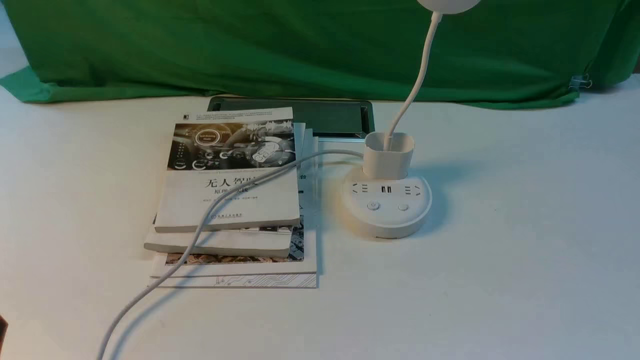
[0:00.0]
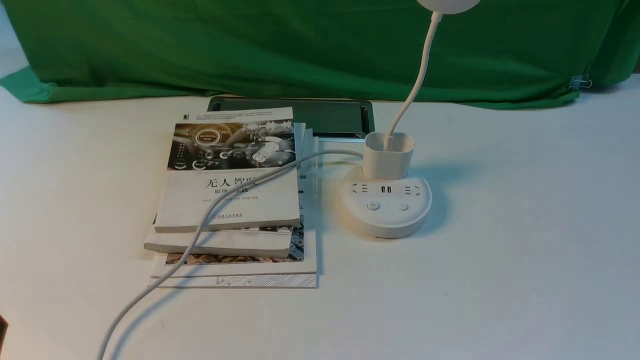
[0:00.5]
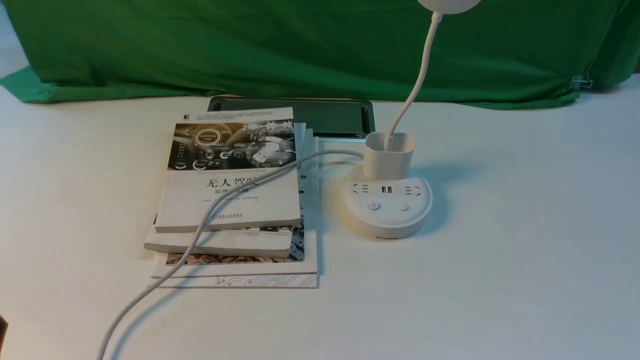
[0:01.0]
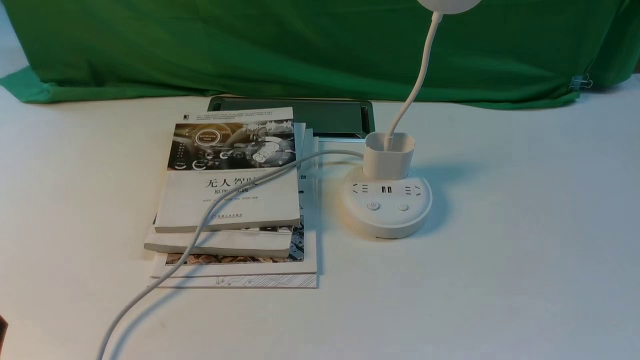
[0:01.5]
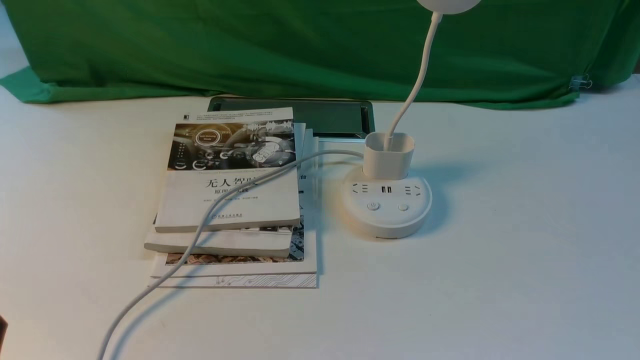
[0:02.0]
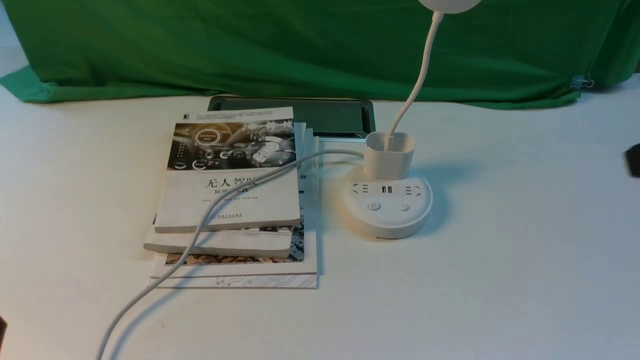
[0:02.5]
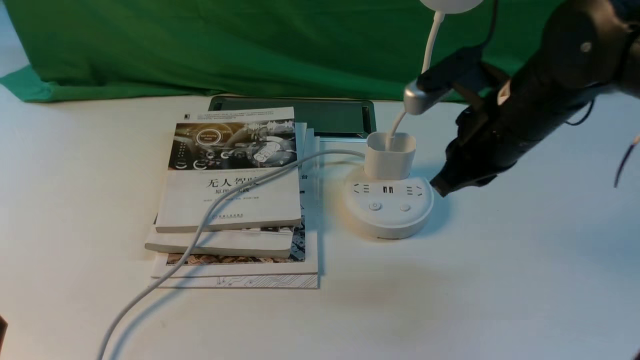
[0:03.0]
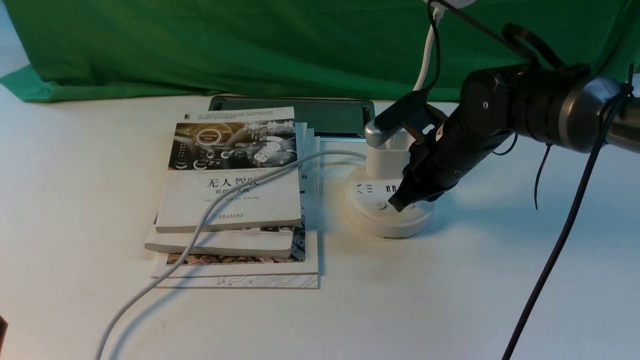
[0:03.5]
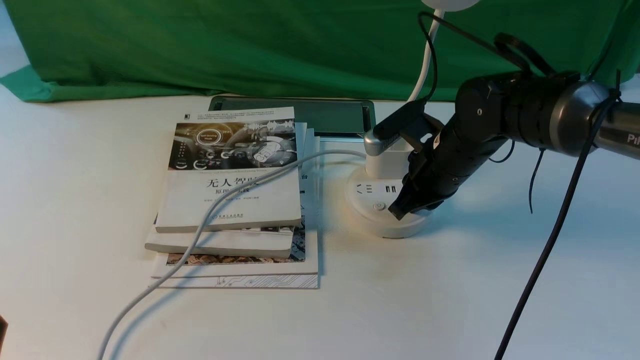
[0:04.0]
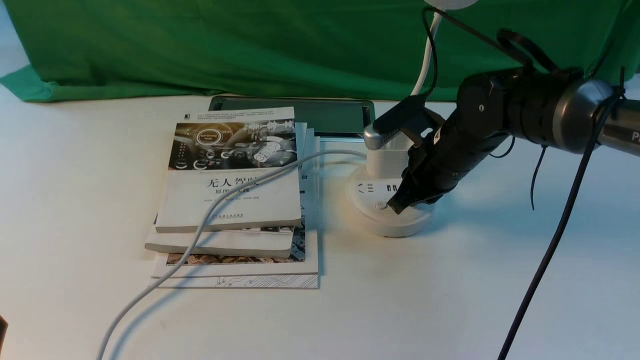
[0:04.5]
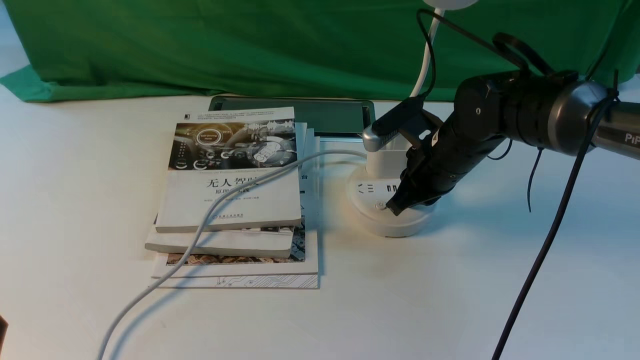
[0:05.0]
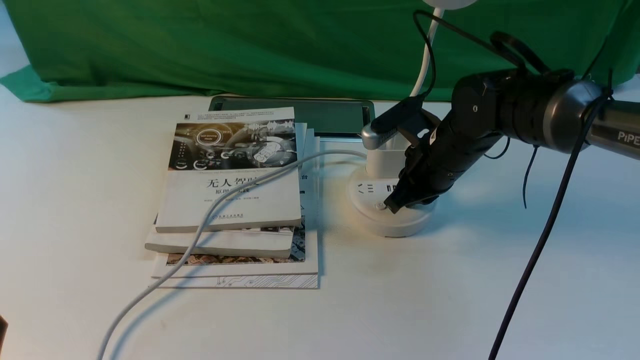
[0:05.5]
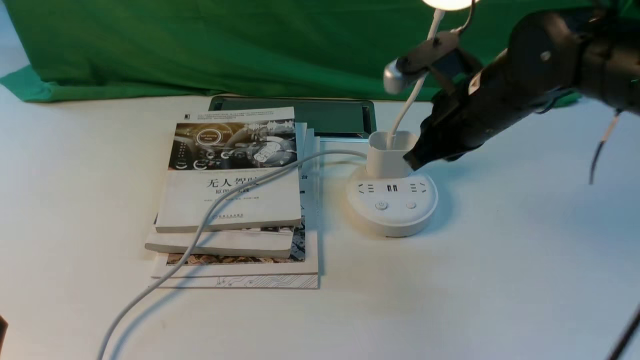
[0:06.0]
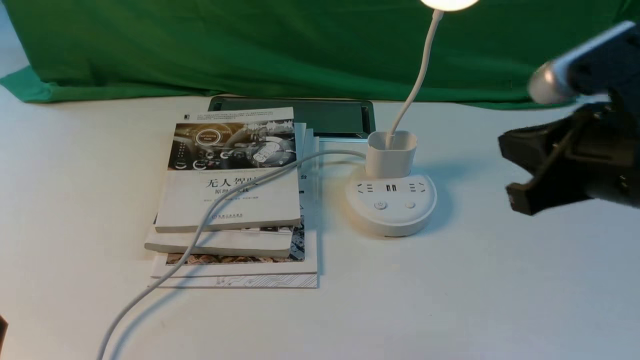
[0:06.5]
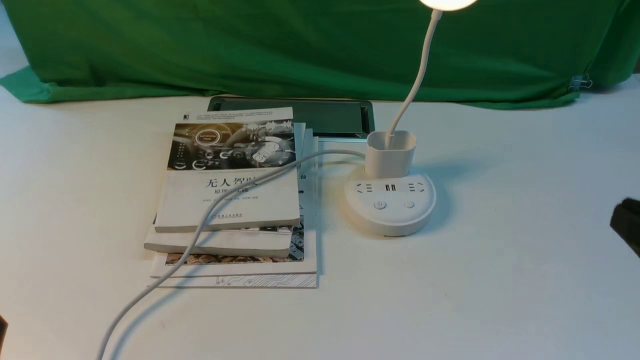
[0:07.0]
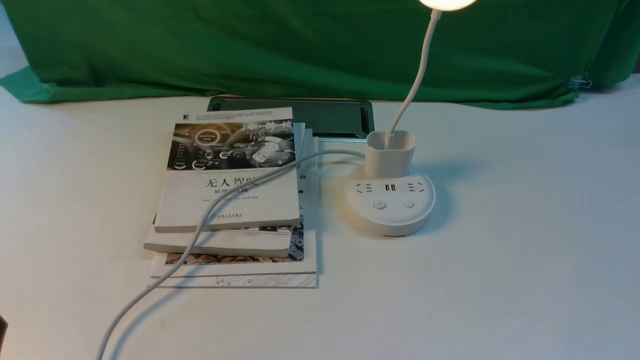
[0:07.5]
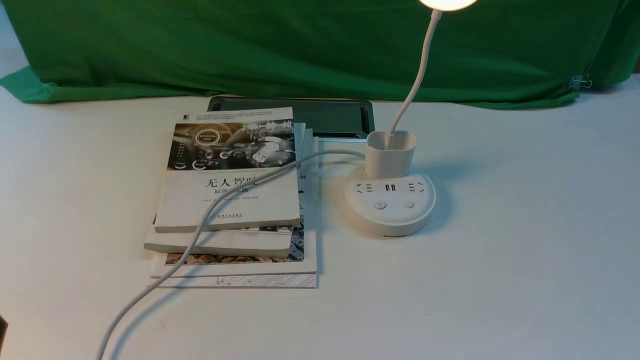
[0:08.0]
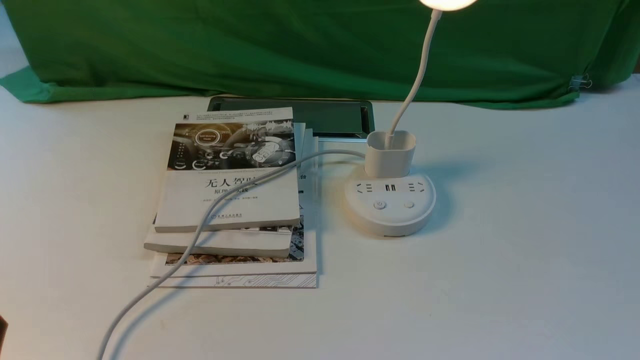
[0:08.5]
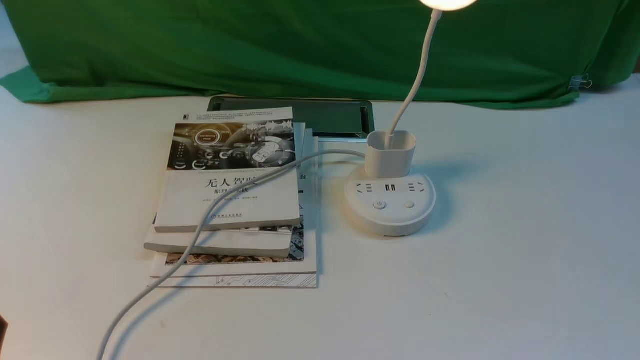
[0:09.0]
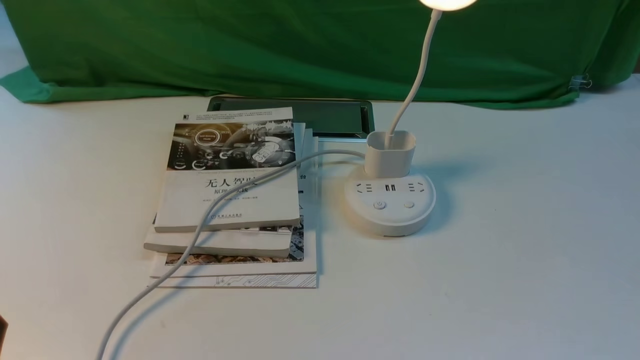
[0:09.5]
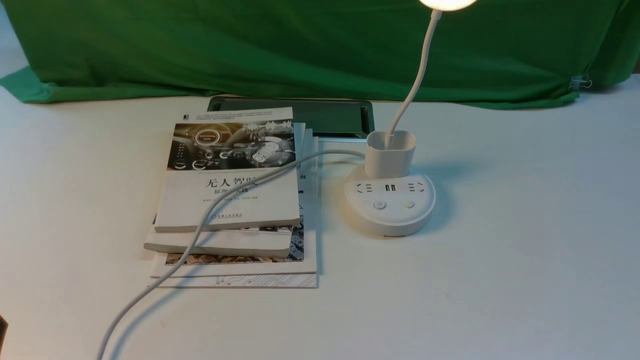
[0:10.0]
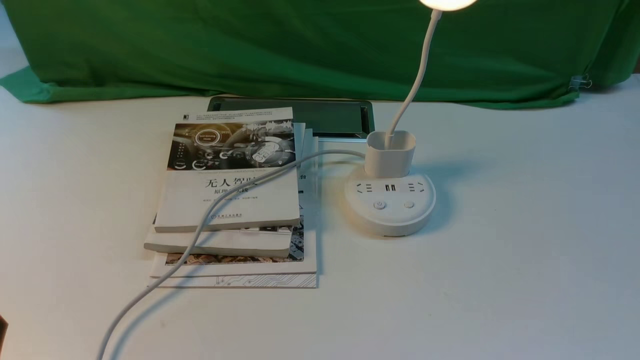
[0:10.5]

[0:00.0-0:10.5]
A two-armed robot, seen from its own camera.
Step, 0:00.0 to 0:06.0: use the right arm to press the button switch on the lamp holder.
0:02.0 to 0:04.0: The right gripper goes about 40 cm forward and to the left, and closes its fingers.
0:04.0 to 0:06.5: The right gripper moves backward, upward and to the right, some 20 cm.
0:06.5 to 0:08.5: The right gripper shifts roughly 25 cm backward, downward and to the right, and opens.
